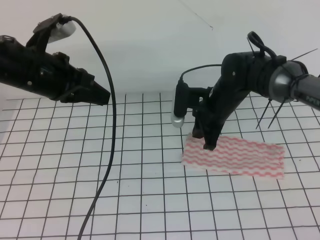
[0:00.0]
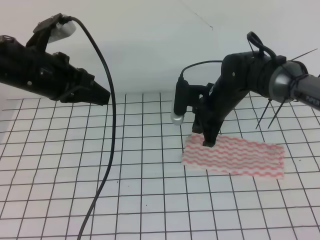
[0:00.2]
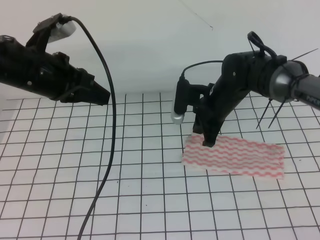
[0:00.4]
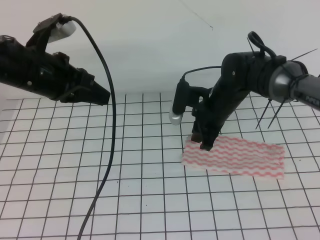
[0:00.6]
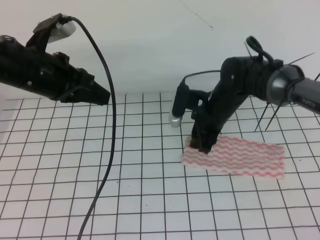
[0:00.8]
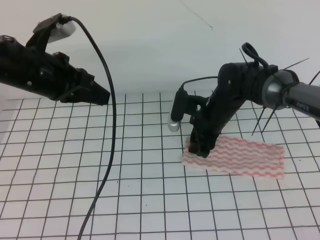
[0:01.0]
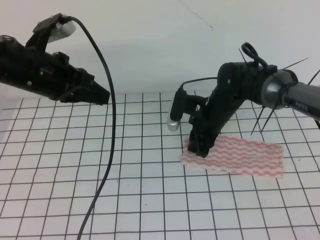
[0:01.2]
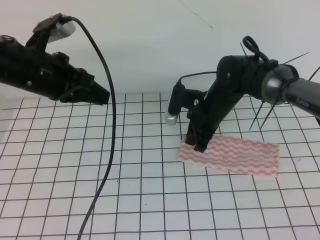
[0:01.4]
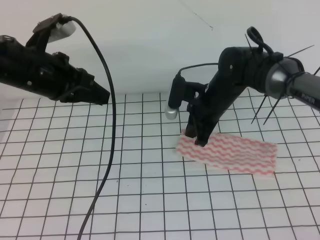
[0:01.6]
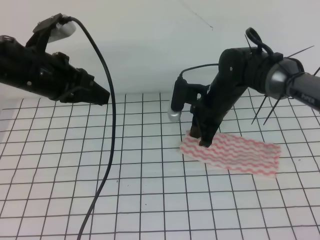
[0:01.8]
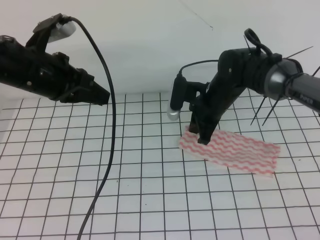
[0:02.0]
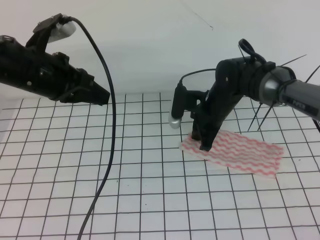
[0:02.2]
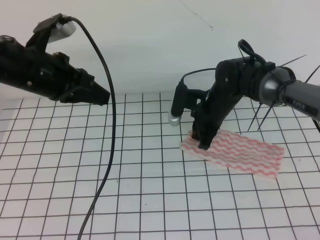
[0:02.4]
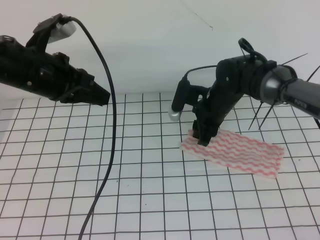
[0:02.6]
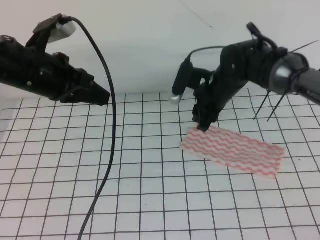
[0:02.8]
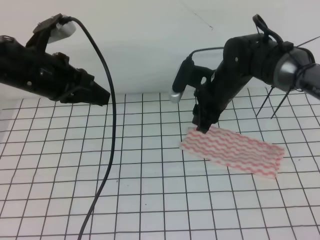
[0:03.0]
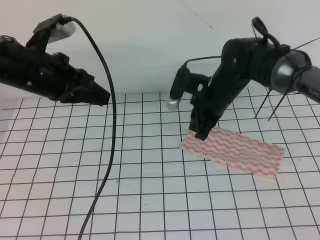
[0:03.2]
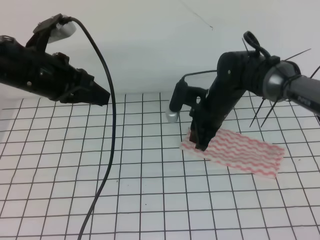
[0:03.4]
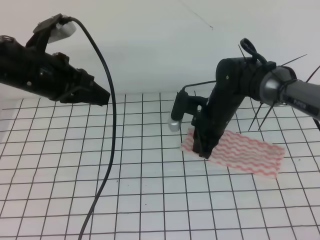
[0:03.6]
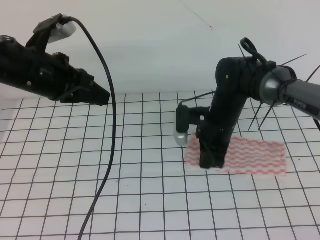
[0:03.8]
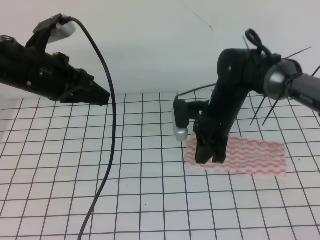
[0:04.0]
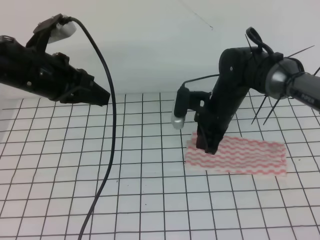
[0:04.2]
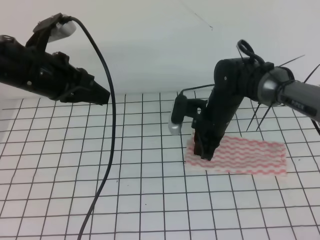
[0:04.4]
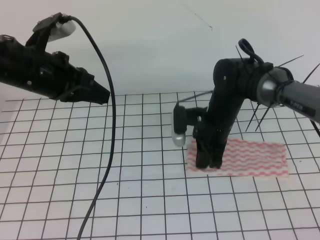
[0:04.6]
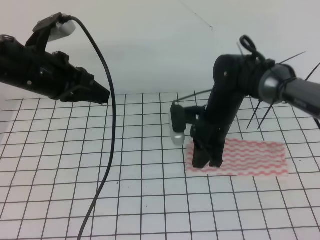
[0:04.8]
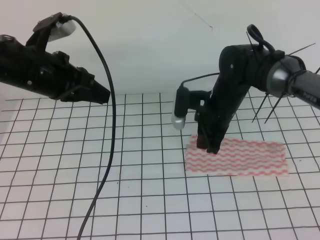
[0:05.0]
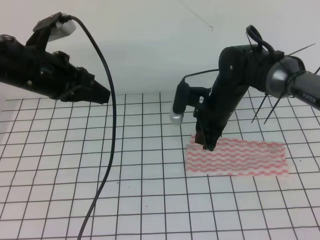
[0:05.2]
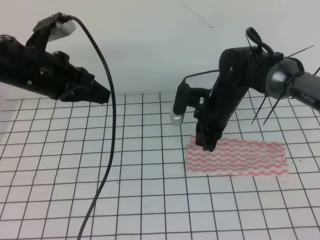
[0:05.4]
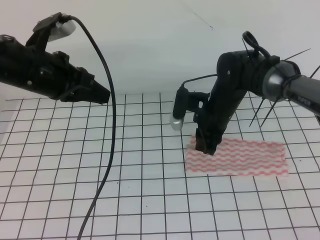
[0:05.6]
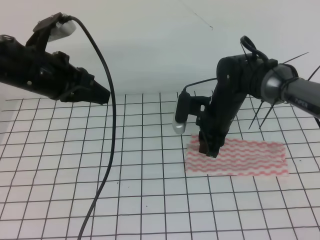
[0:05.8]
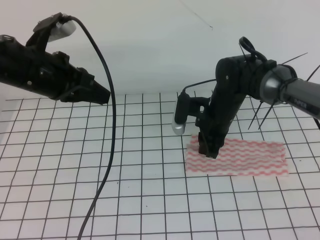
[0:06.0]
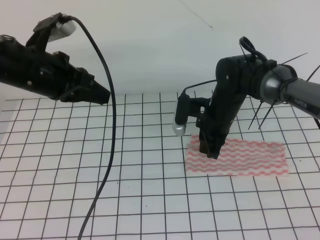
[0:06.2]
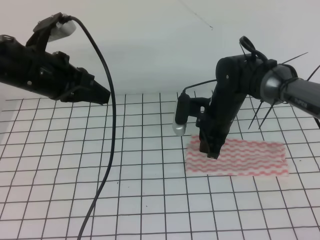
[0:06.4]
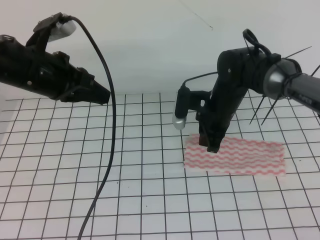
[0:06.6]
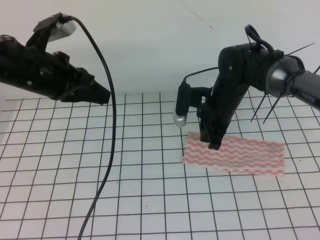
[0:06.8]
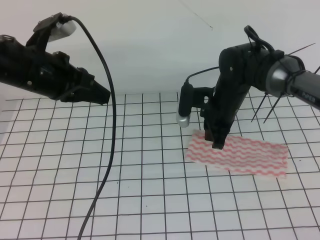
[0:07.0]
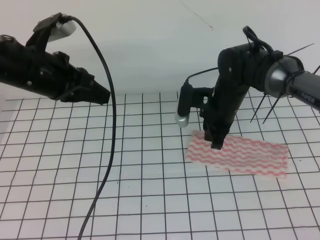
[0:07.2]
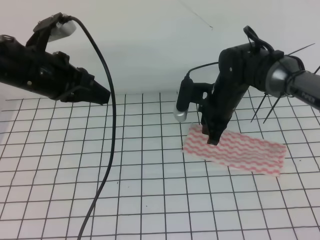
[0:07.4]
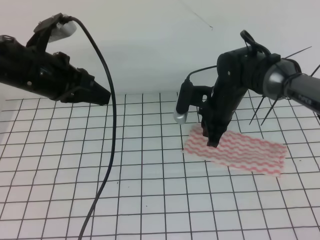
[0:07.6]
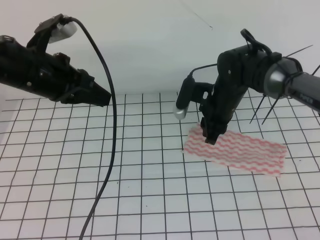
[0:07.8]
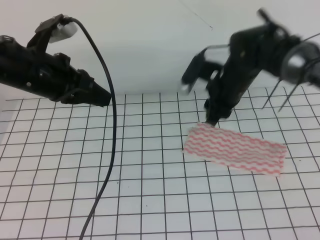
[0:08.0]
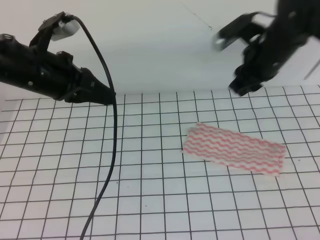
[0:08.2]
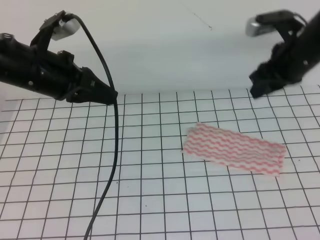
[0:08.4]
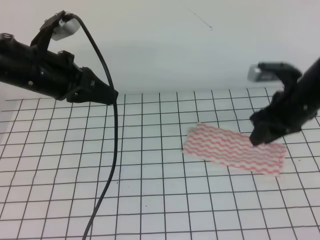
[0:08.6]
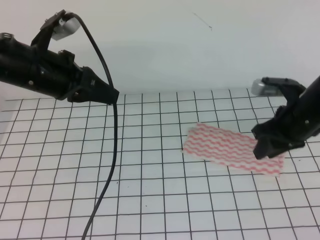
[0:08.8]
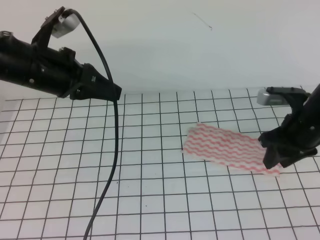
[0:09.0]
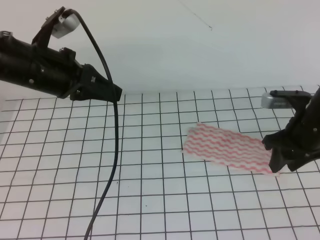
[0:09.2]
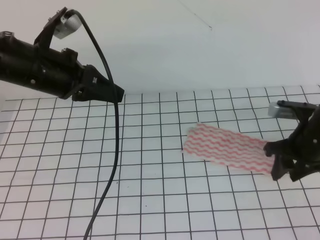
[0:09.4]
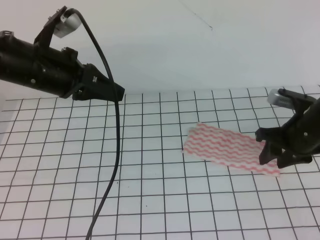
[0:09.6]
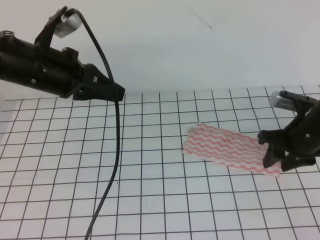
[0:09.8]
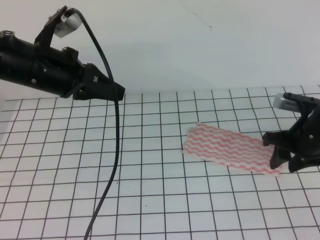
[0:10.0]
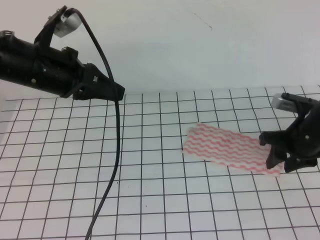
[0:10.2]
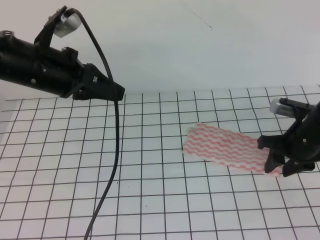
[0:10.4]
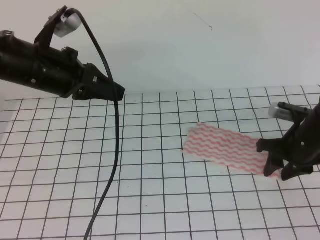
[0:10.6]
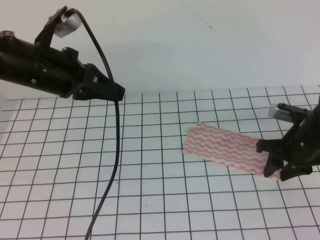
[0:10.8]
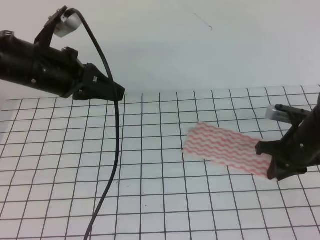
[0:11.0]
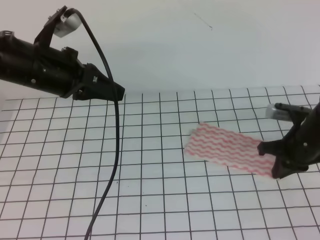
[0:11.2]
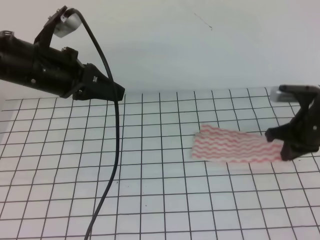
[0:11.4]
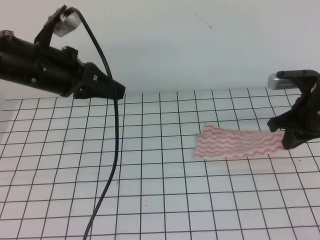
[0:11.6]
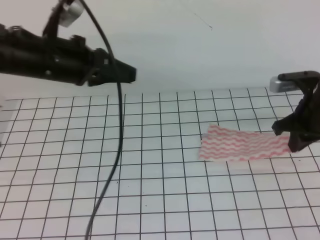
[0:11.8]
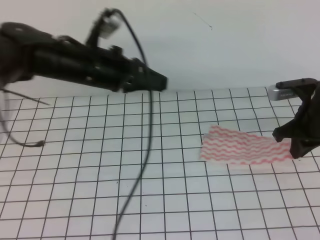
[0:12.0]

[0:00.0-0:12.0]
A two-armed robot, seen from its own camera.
Step, 0:01.2 to 0:03.0: Tidy up the towels.
0:00.0 to 0:01.6: The right gripper opens and closes again.
0:01.6 to 0:03.0: The right gripper opens.
0:03.0 to 0:04.4: The right gripper travels downward by roughly 5 cm, and closes.
0:04.4 to 0:06.0: The right gripper opens.
0:06.0 to 0:07.6: The grippers stay close to where they were, moving slightly.
0:07.6 to 0:09.0: The right gripper travels to the right and backward by about 15 cm, and opens up.
0:10.4 to 0:12.0: The right gripper moves roughly 5 cm, and closes up. The left gripper shifts about 5 cm to the right.

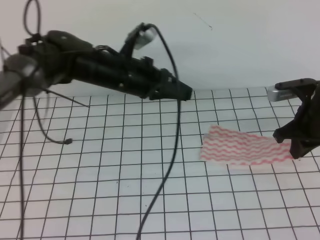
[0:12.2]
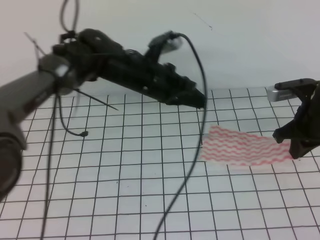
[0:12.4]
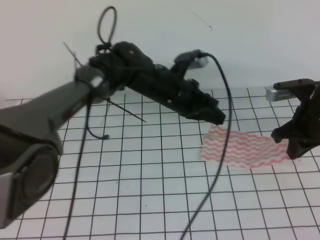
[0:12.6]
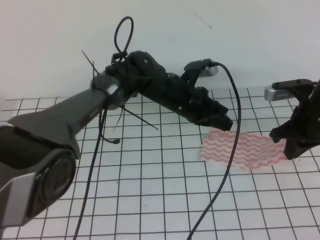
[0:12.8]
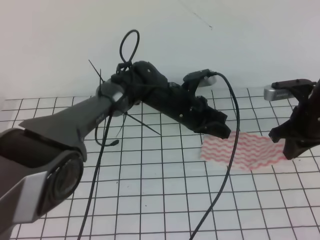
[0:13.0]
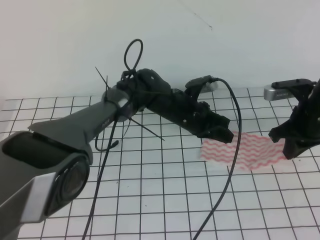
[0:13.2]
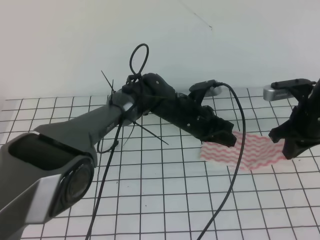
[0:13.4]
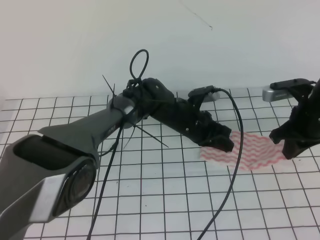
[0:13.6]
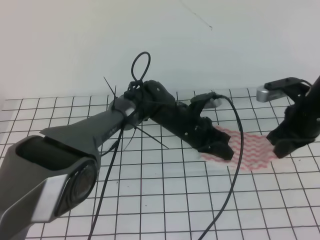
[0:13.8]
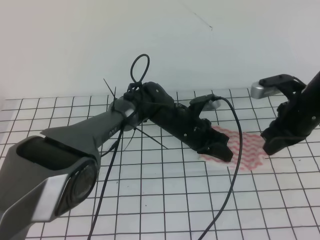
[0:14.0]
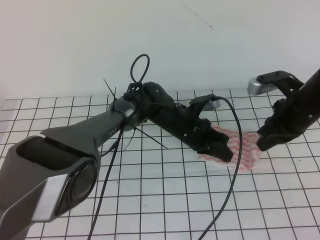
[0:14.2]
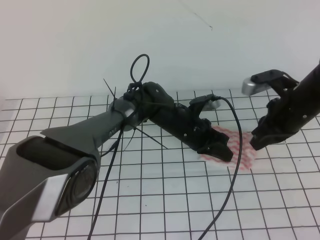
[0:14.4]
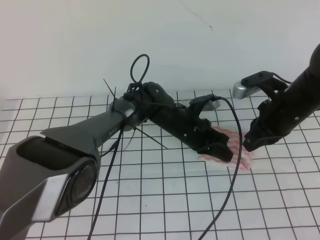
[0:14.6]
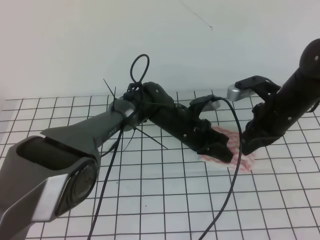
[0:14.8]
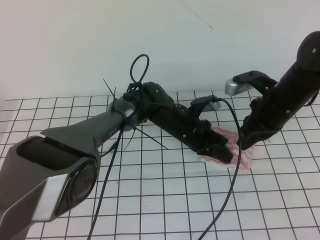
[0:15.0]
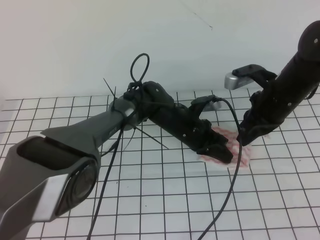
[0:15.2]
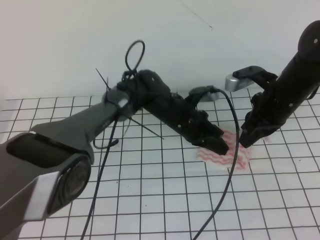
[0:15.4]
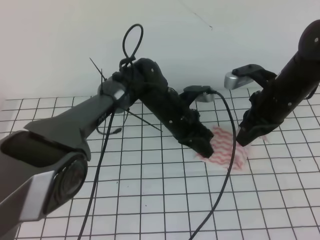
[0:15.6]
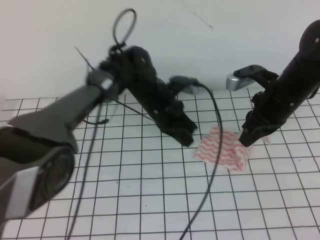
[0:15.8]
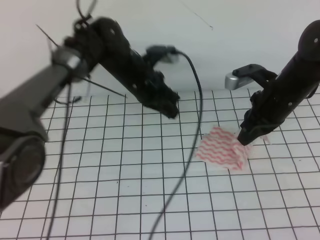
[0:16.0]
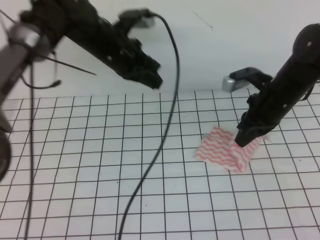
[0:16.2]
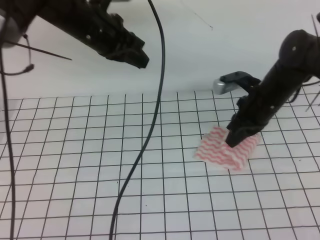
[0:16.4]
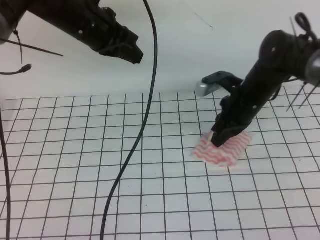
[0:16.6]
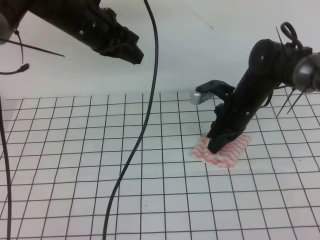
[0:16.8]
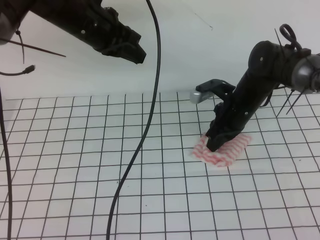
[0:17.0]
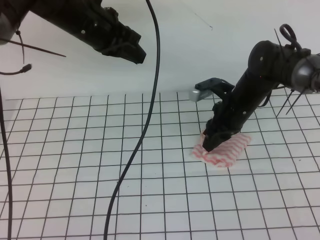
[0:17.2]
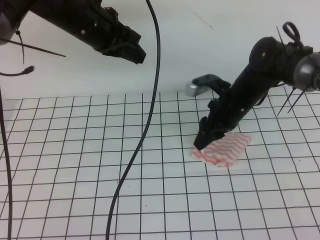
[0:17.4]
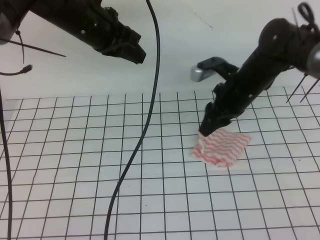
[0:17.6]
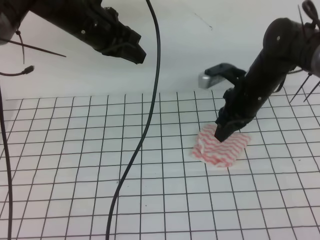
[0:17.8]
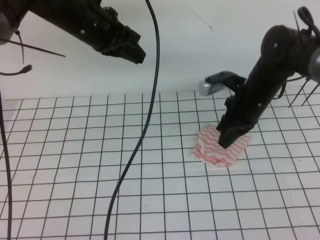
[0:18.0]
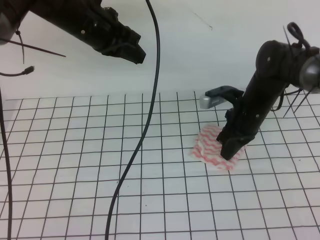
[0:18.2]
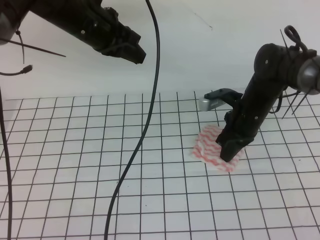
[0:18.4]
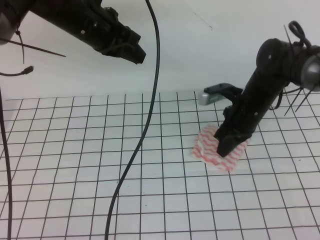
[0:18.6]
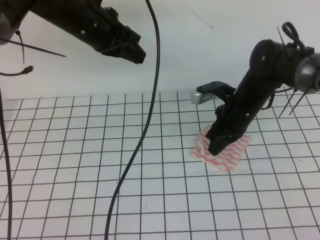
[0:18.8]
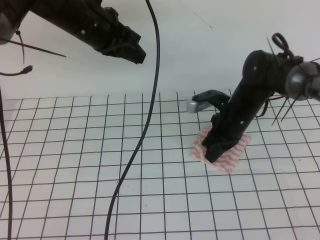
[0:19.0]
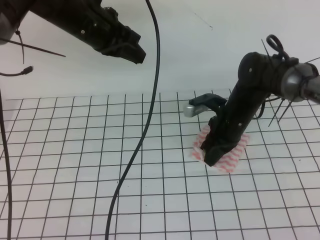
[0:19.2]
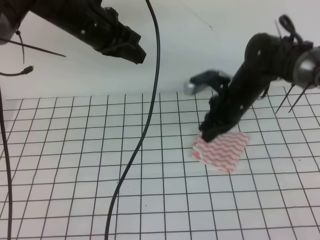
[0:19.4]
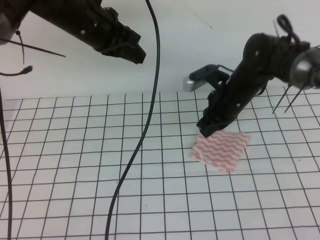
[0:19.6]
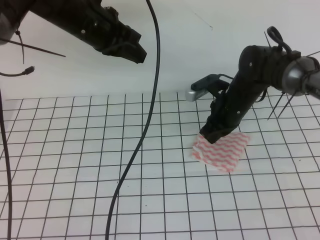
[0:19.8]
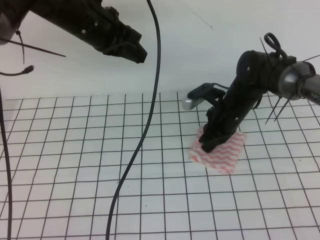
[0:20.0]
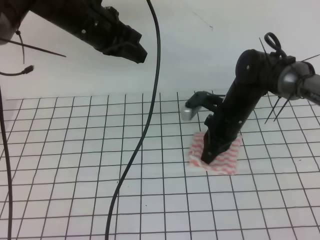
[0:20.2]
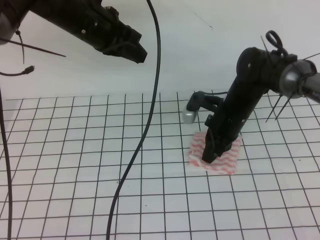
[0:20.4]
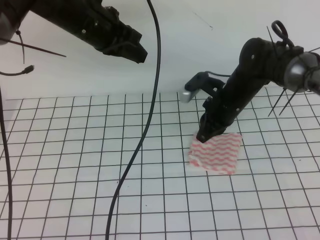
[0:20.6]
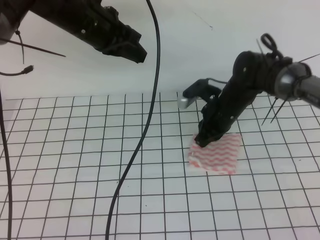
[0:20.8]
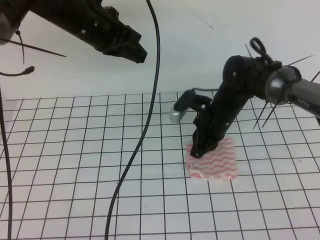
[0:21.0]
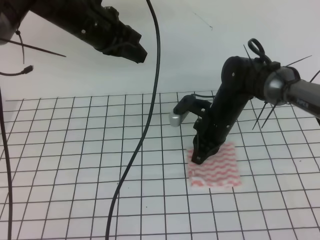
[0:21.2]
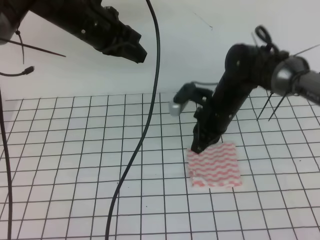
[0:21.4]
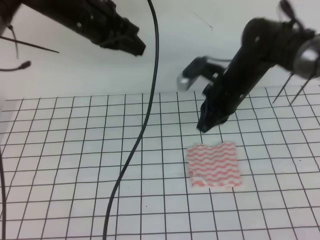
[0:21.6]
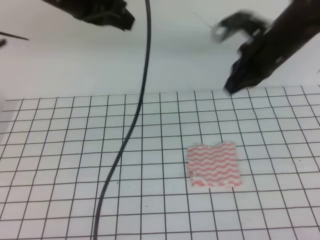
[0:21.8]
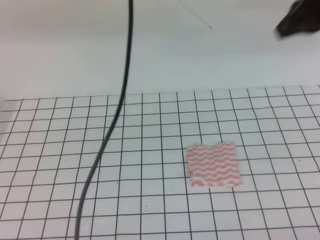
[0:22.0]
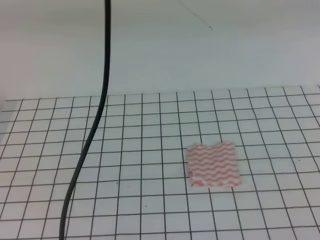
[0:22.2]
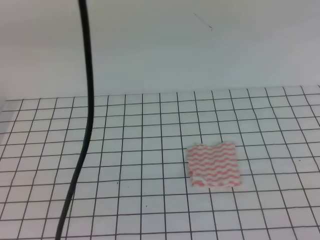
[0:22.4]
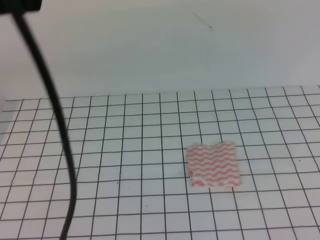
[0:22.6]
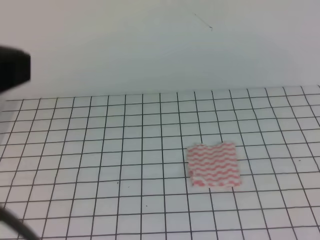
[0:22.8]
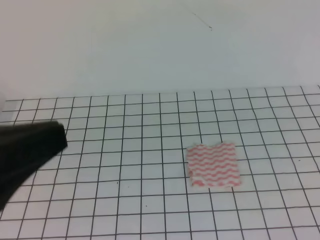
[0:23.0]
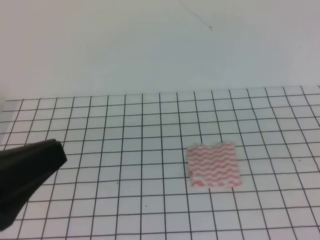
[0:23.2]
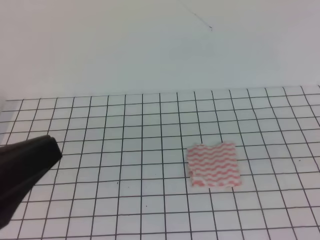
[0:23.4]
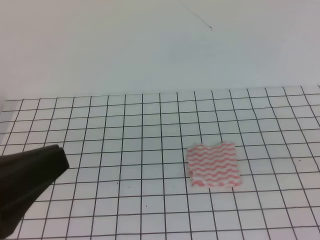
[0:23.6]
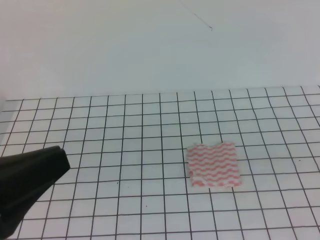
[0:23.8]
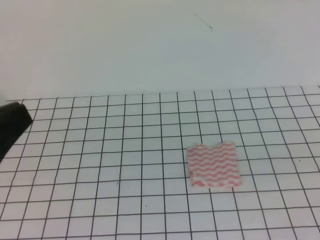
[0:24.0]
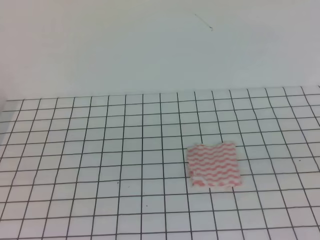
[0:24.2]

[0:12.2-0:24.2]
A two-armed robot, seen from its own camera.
0:12.2 to 0:13.8: The left gripper moves downward and to the right, roughly 20 cm.
0:13.8 to 0:15.2: The right gripper moves approximately 5 cm.
0:15.2 to 0:16.6: The left gripper goes about 25 cm upward and to the left. The right gripper shifts by approximately 5 cm.
0:16.6 to 0:18.2: The right gripper opens, then closes again.
0:18.2 to 0:19.8: The grippers stay close to where they were, moving slightly.
0:19.8 to 0:21.2: There are only small adjustments of the grippers.
0:21.2 to 0:22.6: The left gripper shifts approximately 30 cm backward and upward. The right gripper shifts approximately 50 cm upward, backward and to the right.
0:22.6 to 0:24.2: The two grippers go roughly 20 cm downward and backward.
